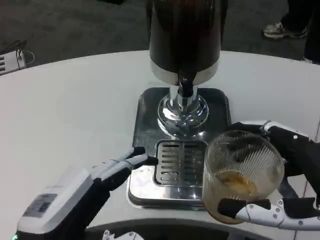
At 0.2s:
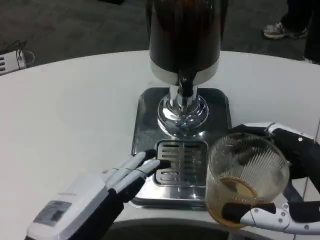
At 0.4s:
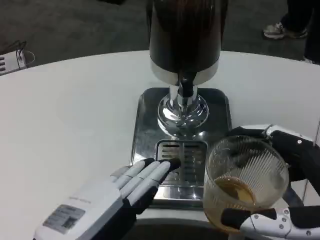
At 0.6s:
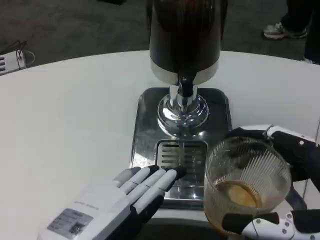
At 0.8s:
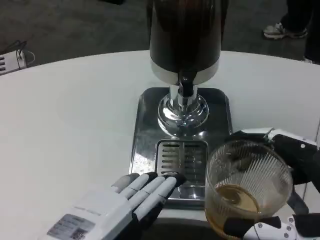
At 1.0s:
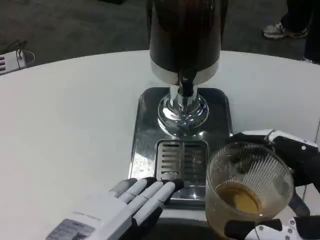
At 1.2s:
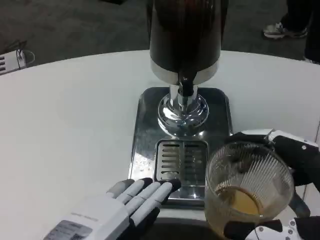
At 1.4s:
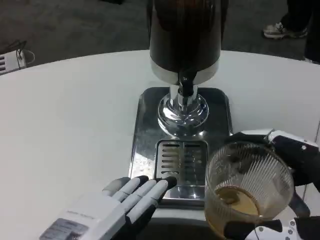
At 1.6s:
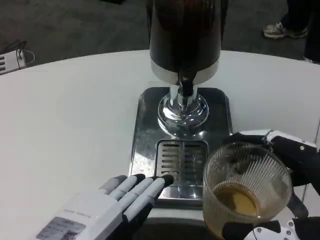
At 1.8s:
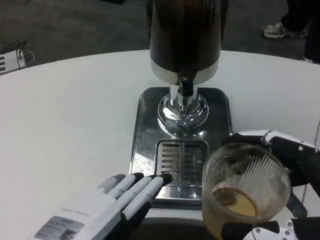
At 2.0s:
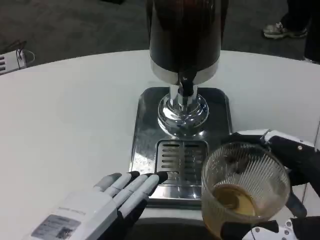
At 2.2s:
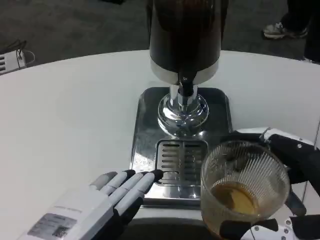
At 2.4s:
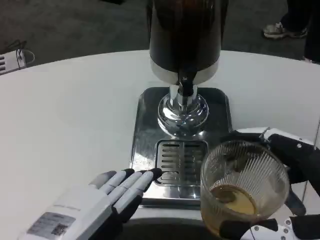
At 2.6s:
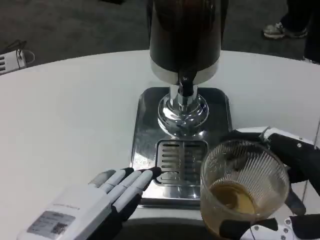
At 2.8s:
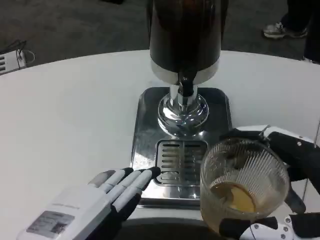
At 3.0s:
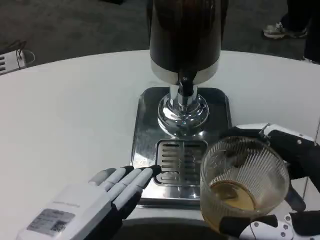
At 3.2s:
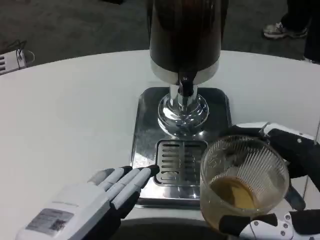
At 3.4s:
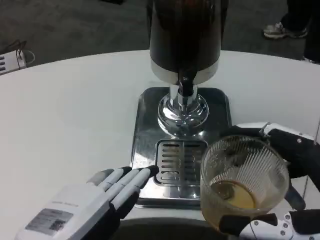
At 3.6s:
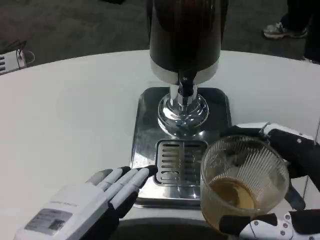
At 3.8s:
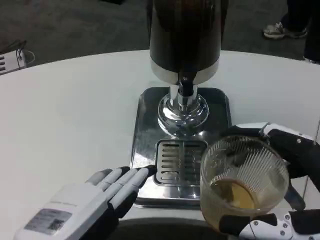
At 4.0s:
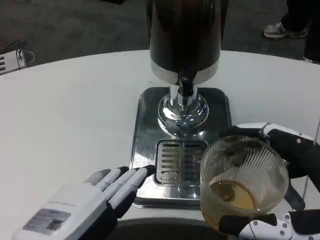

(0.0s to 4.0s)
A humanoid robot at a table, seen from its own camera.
Task of the whole recording: Grasp the cup under the faucet to collect the drink, then remove the cup.
0.0s - 1.4s: The hands make only small movements.
1.4s - 4.0s: Neither hand changes place.

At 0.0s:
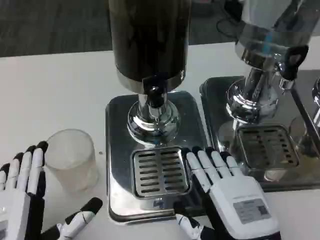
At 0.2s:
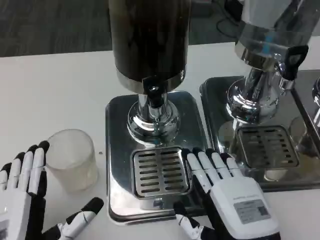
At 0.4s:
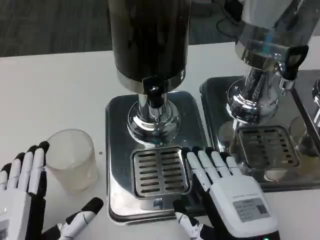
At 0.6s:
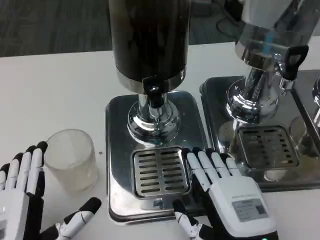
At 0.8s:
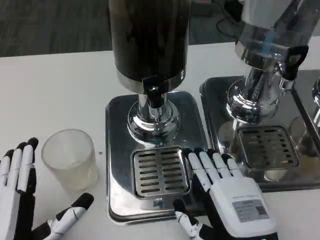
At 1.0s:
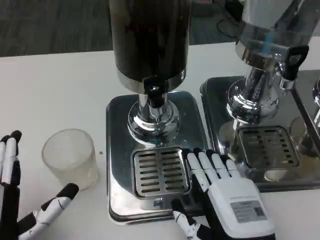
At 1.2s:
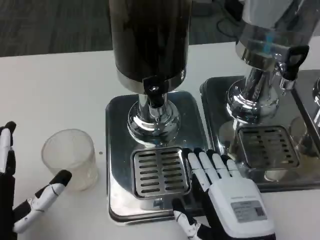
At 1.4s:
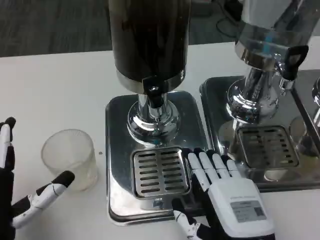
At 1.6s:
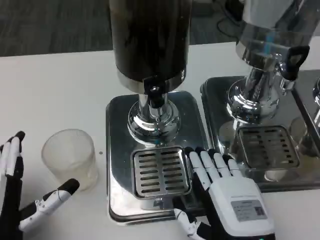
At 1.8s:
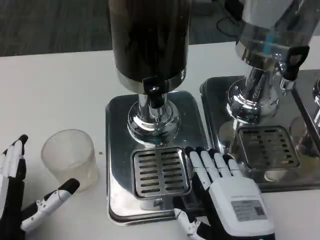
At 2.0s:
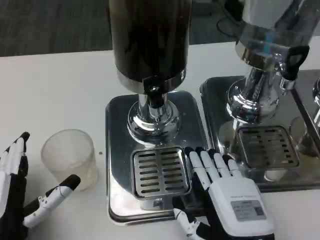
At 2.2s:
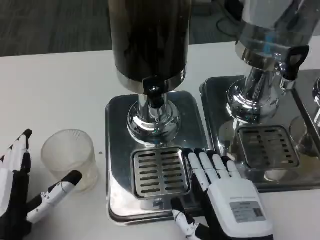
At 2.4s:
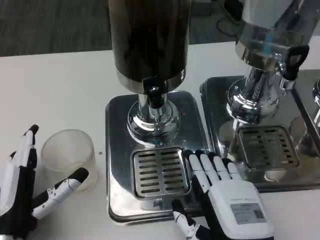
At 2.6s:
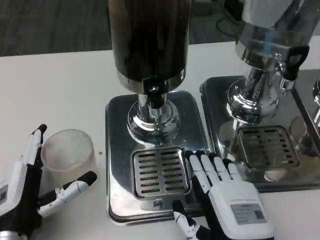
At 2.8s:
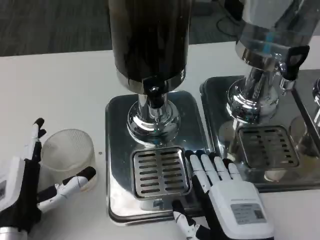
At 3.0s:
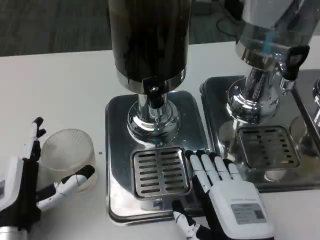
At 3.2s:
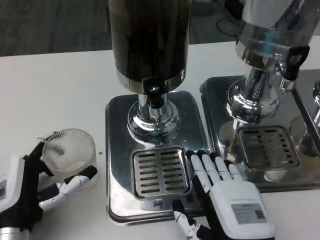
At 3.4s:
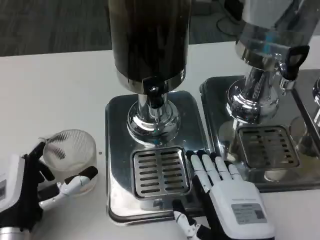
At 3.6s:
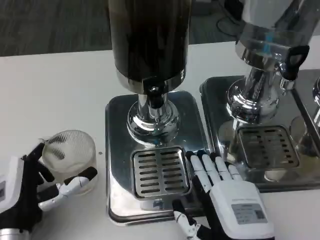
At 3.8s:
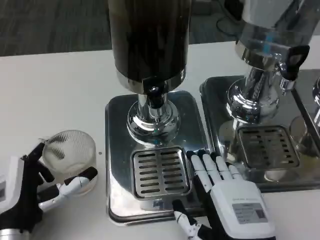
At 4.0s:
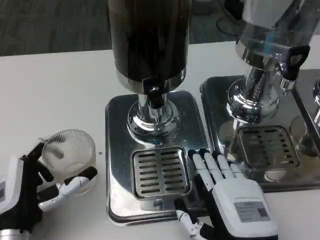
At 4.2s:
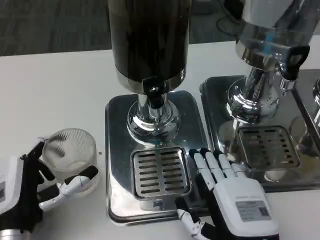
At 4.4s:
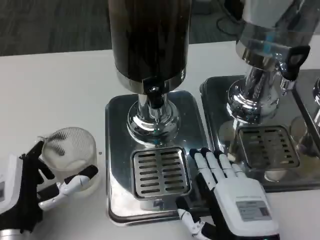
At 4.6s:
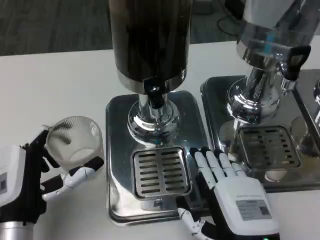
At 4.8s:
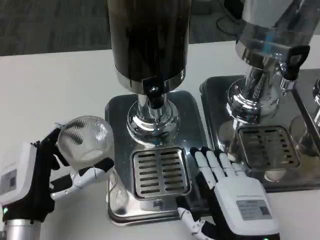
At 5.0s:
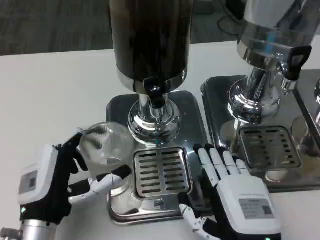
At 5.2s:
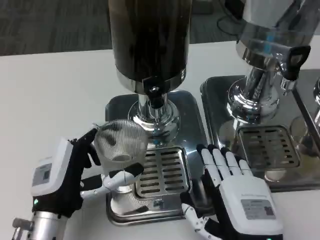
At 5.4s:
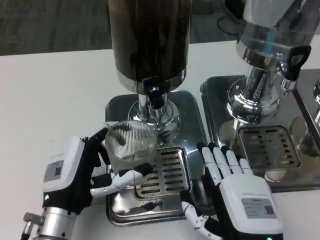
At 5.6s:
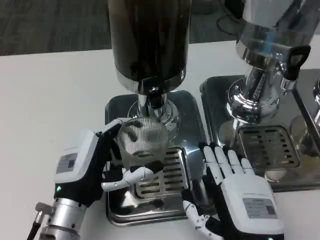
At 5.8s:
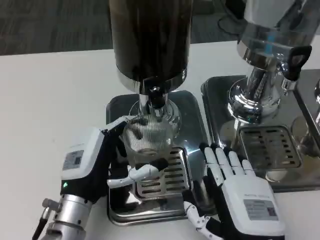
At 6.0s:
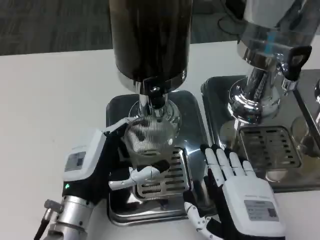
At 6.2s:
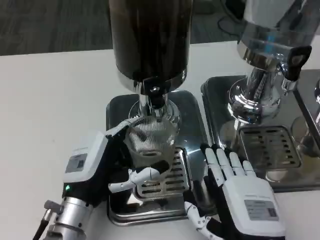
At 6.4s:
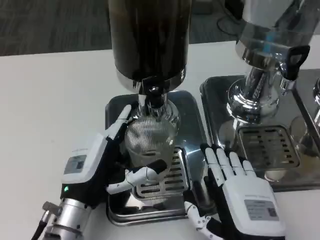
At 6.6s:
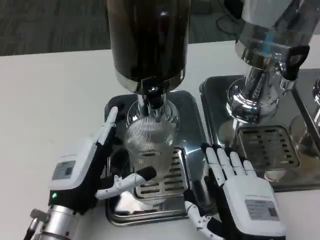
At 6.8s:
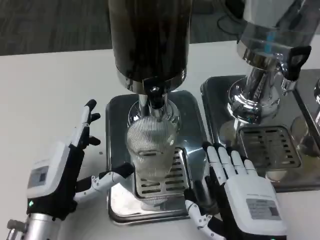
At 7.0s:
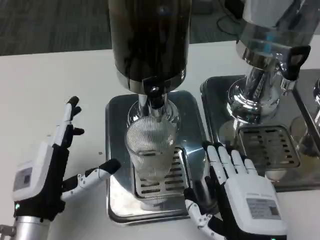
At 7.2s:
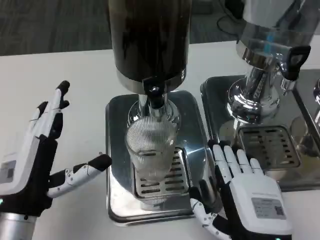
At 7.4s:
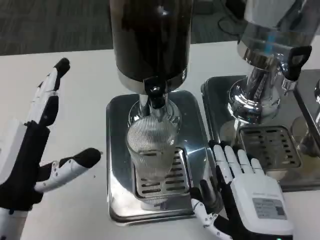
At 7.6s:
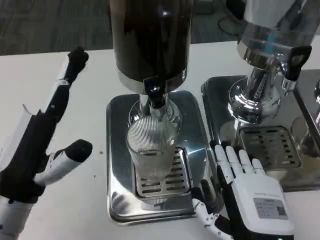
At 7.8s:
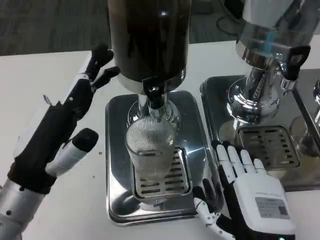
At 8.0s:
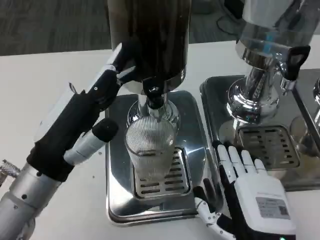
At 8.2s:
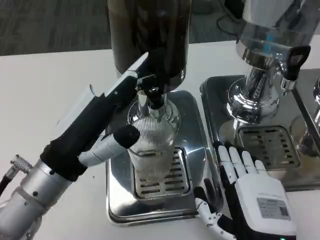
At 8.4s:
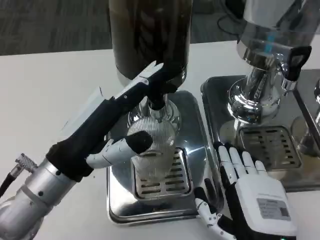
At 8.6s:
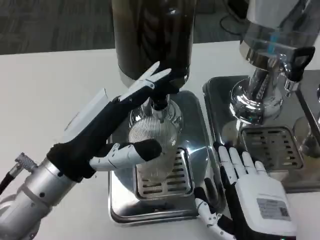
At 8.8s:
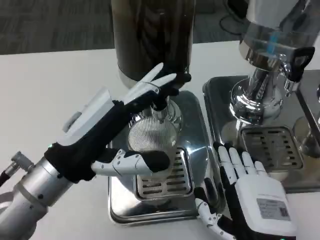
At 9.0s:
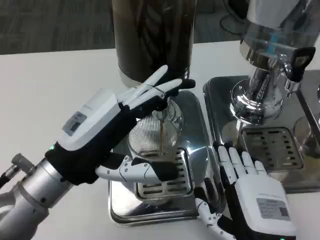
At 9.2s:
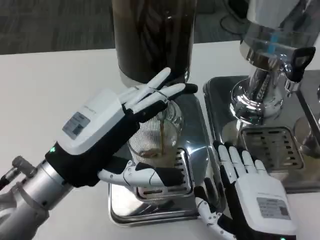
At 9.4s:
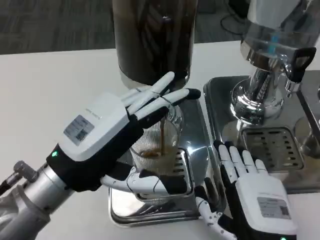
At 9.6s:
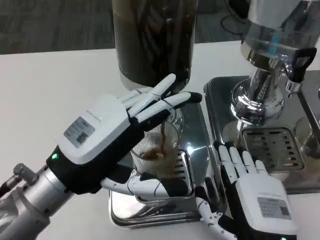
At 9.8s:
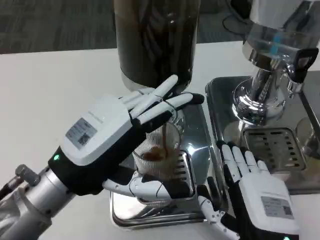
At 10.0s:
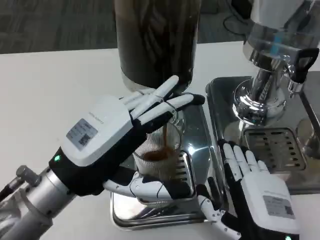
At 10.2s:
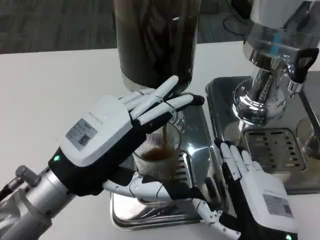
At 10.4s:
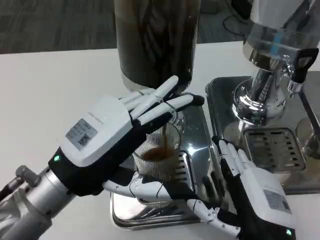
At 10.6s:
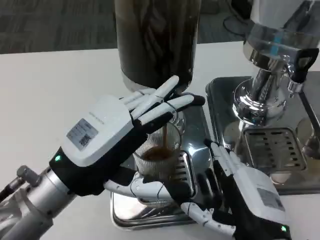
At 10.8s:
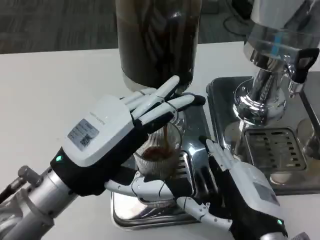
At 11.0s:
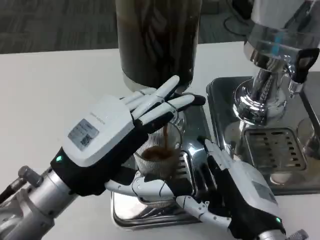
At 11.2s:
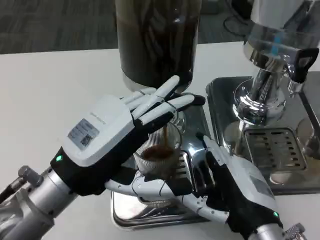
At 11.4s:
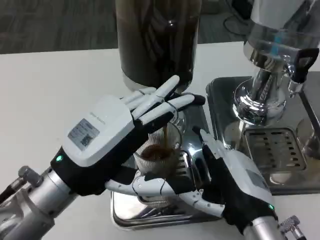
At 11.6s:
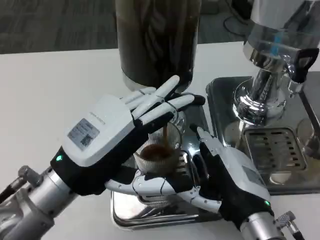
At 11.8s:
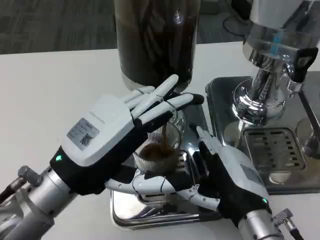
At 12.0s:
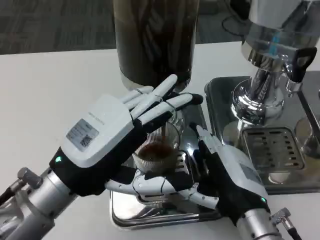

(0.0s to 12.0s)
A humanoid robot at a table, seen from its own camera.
Task of the whole recording: Grasp the cup under the faucet to collect the drink, then remove the cup.
0.0s - 1.6s: The left hand changes place by about 5 cm.
1.6s - 4.4s: The hands make only small movements.
4.4s - 6.0s: The left hand goes approximately 5 cm to the right.
6.0s - 7.6s: The left hand goes some 10 cm upward and to the left.
7.6s - 9.0s: The left hand ends up approximately 5 cm from where it was.
10.4s - 12.0s: The right hand is displaced forward by about 5 cm.

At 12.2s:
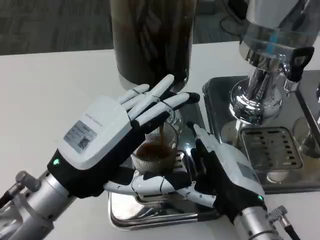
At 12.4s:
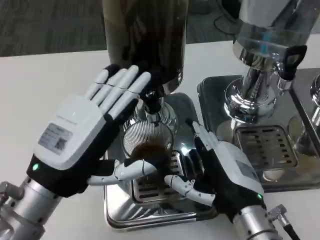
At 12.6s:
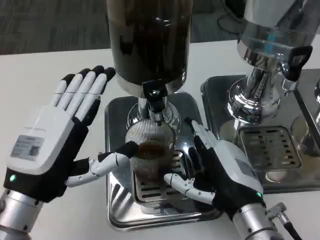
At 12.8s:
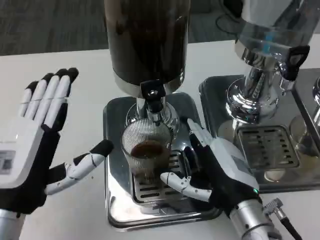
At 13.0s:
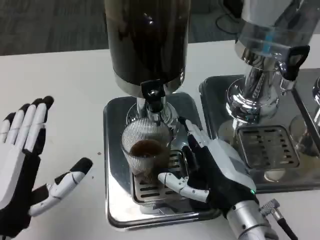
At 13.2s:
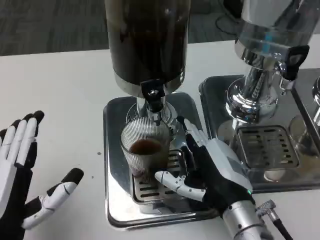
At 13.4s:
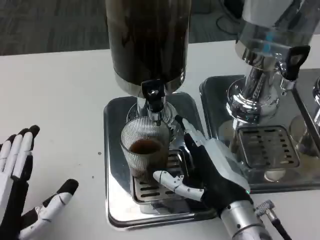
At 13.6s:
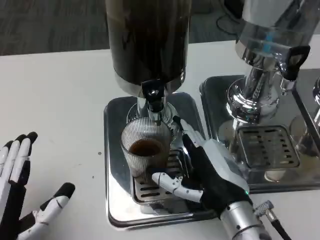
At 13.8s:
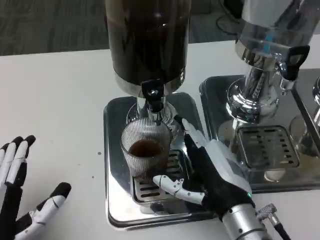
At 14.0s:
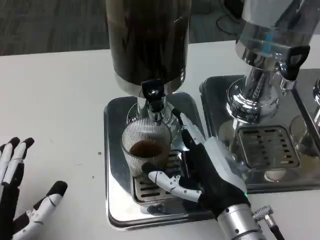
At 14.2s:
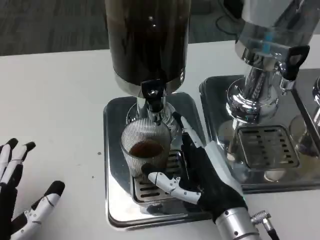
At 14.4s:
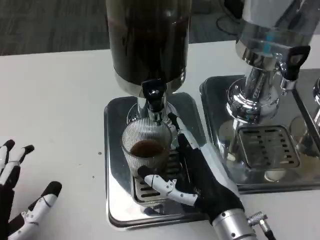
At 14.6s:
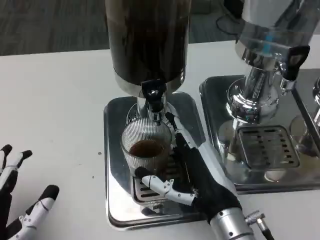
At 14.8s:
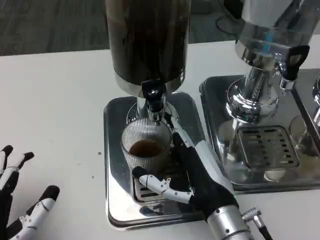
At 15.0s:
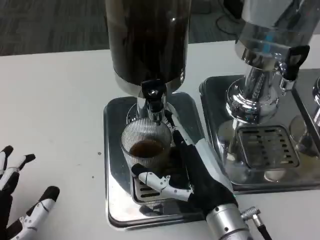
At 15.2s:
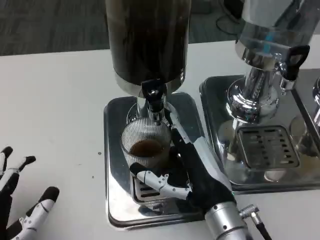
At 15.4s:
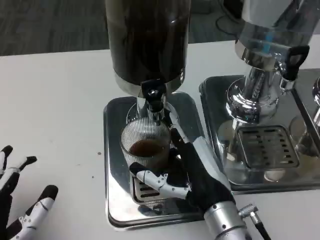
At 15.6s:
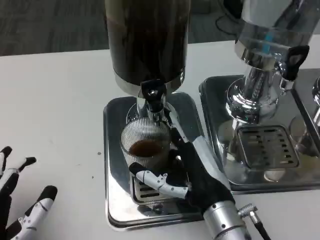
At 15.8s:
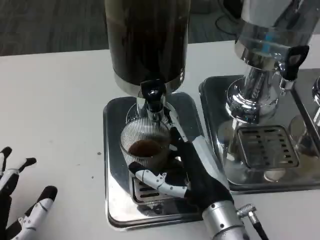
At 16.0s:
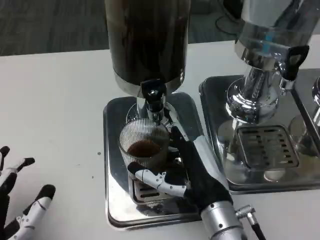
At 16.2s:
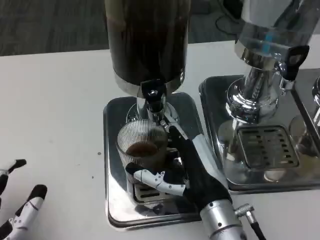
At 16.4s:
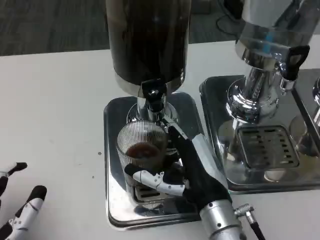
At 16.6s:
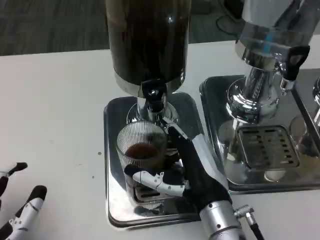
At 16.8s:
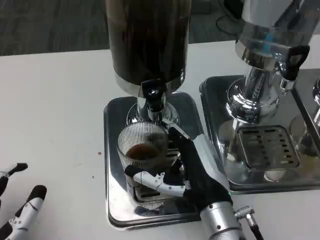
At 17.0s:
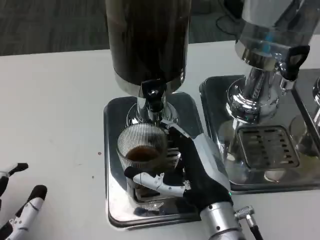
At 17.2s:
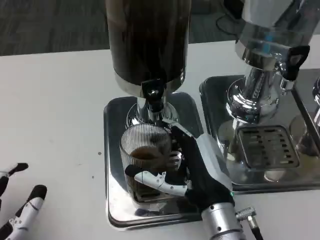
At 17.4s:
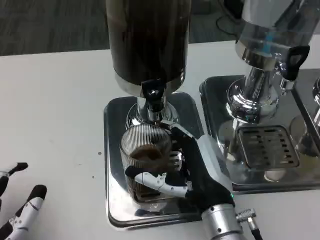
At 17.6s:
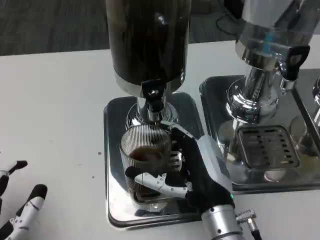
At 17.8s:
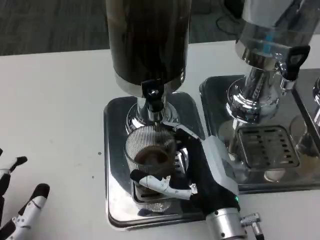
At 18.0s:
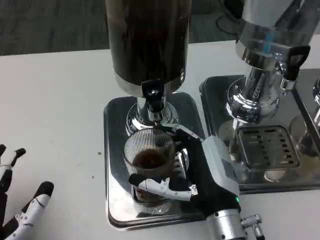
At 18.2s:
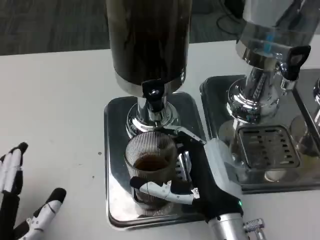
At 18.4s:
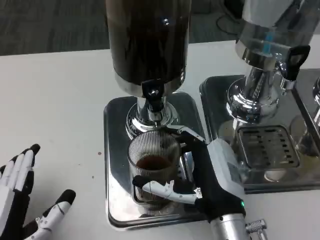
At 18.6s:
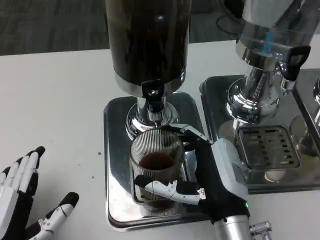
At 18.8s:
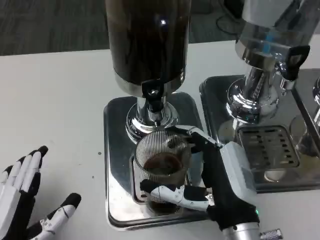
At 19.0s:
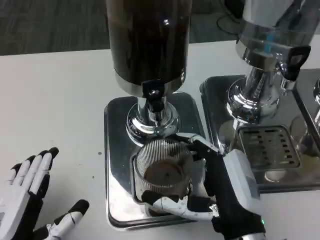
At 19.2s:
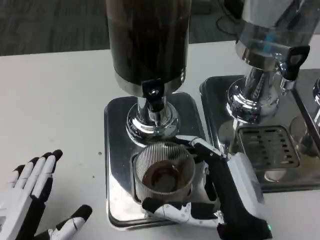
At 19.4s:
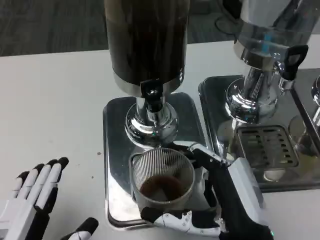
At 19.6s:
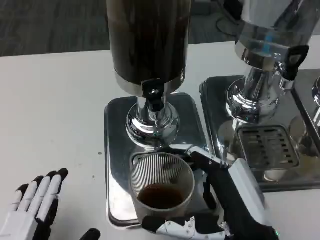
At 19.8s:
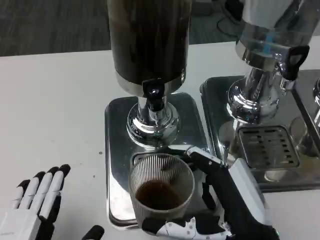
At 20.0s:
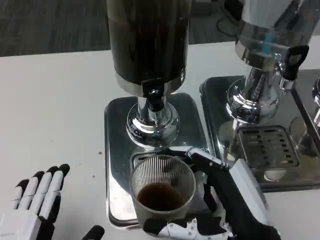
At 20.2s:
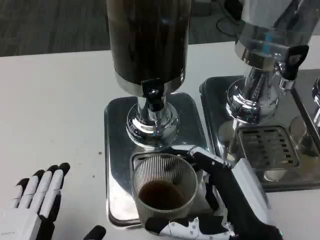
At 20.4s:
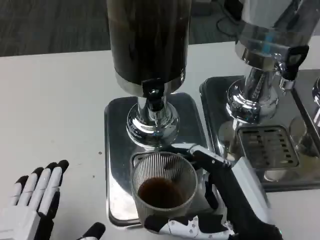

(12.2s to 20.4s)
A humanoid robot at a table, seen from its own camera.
Task of the whole recording: Grasp the cup under the faucet to collect the drink, then remove the cup.
12.2s - 13.8s: The left hand travels backward, downward and to the left by some 15 cm.
13.8s - 18.8s: The hands make only small movements.
18.8s - 20.4s: The right hand ends up some 5 cm from where it was, while the left hand ends up some 5 cm from where it was.
